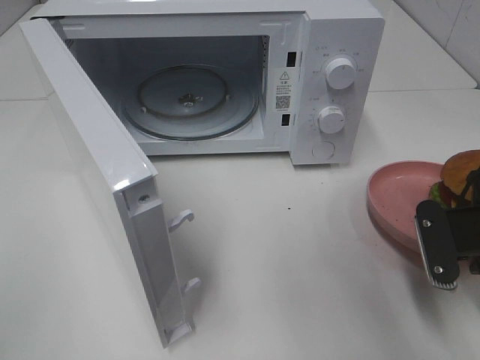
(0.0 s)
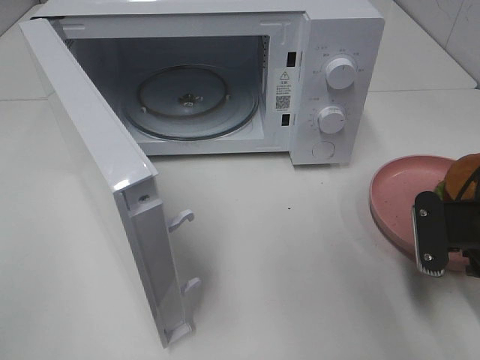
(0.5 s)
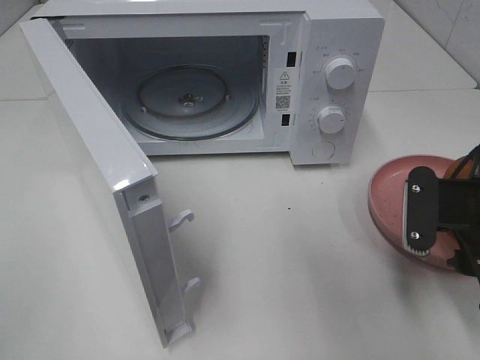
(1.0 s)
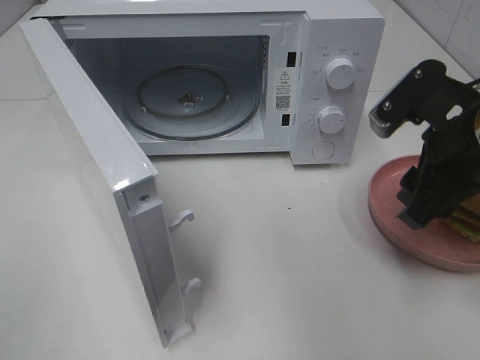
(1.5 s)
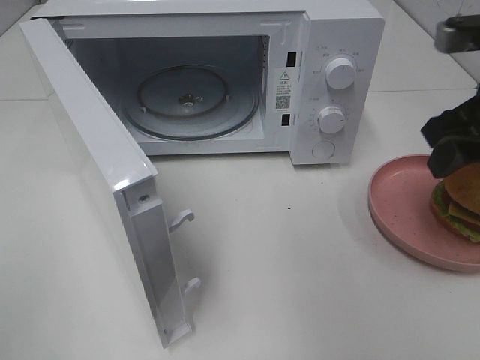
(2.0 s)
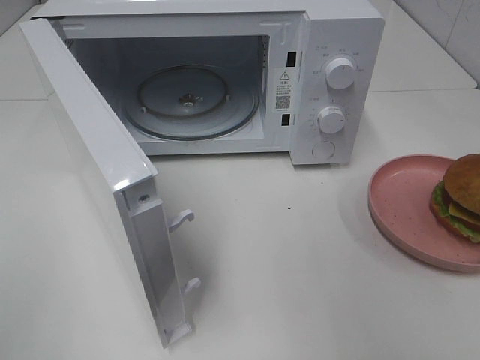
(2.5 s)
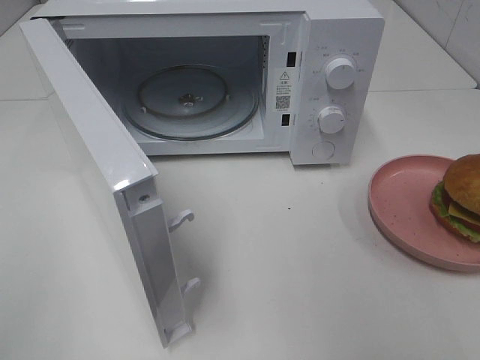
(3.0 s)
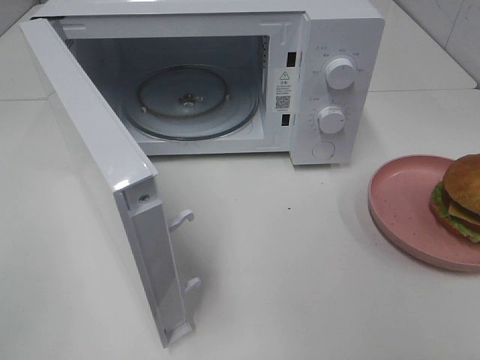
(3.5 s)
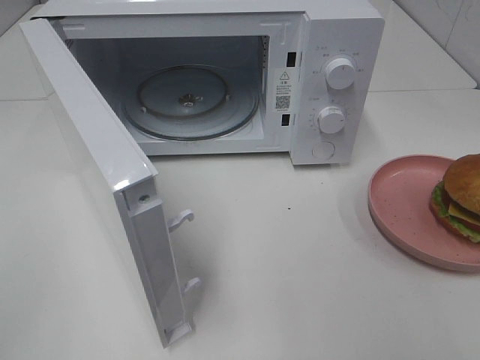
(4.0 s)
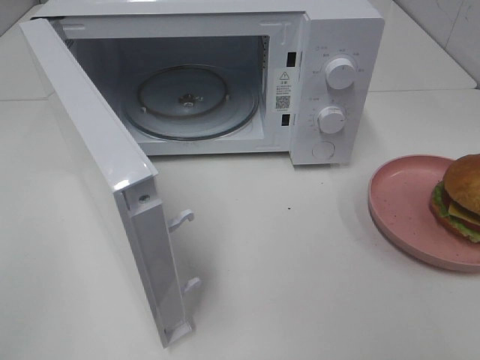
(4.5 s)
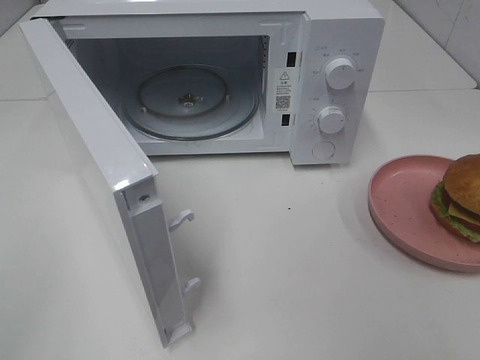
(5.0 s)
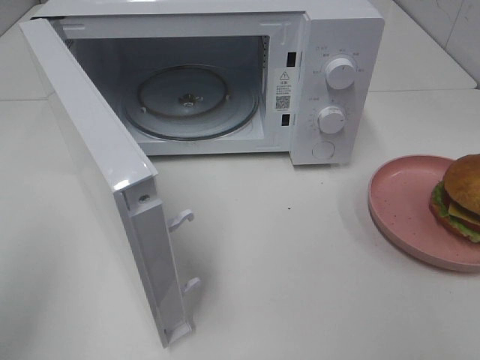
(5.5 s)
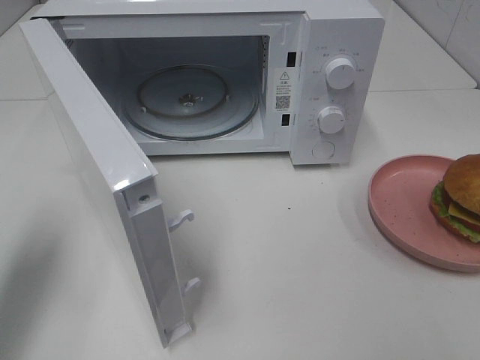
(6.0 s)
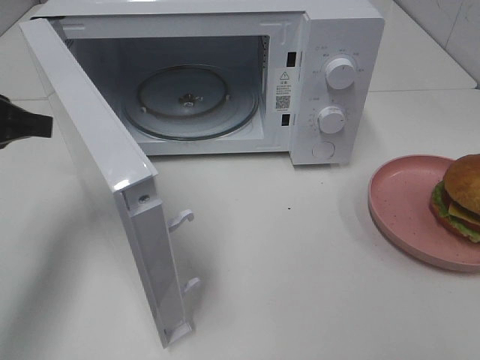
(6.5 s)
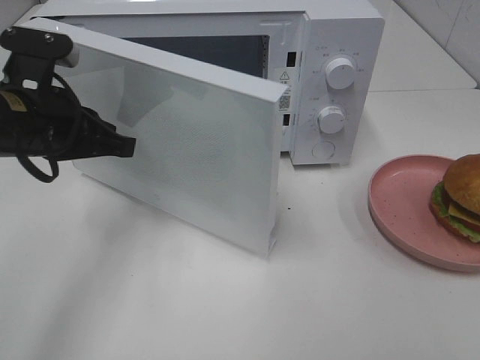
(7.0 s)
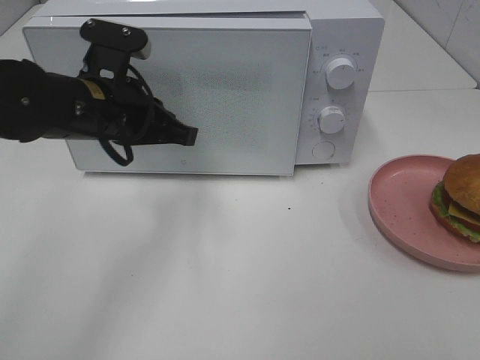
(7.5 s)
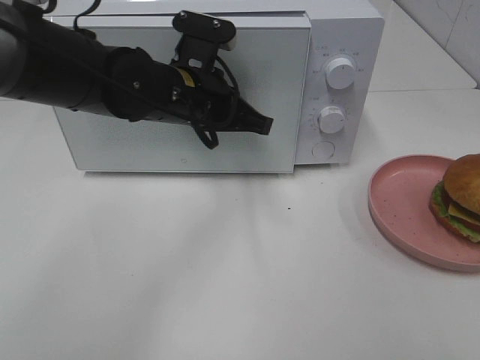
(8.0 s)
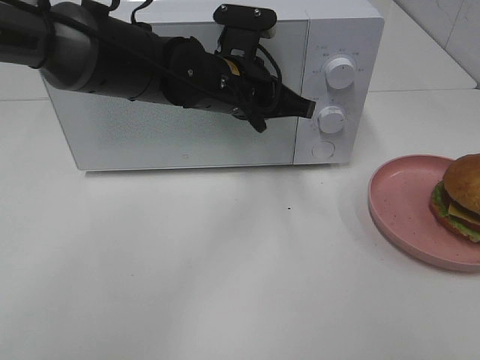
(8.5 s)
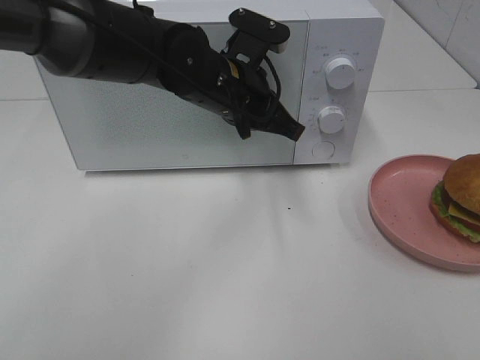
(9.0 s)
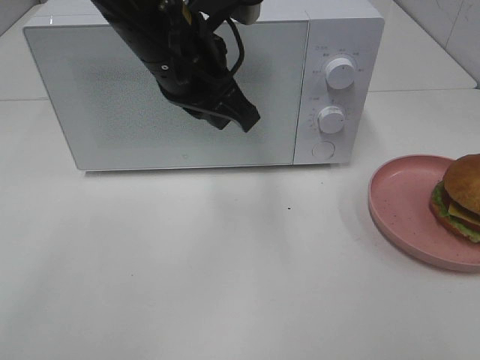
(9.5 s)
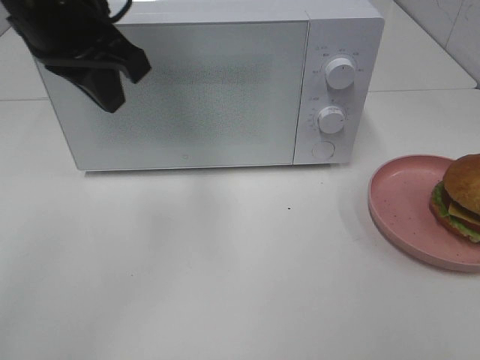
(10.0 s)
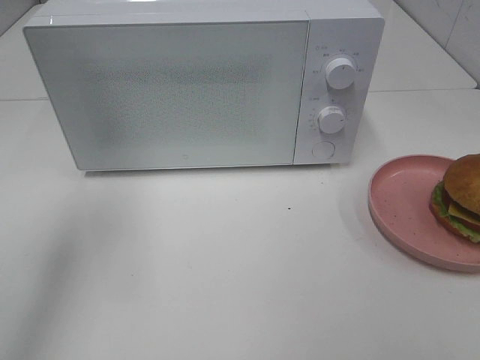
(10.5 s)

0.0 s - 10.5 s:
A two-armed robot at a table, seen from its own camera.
Task of the whole recording: Heat the burger.
Step, 1.0 s - 9.0 s: Left hand: close the microwave door.
0.0 s - 2.0 s: The right gripper shifts some 15 cm upward, and opens its fingers.
2.0 s - 4.0 s: The right gripper moves backward, approximately 25 cm.
4.0 s - 6.5 s: The left gripper shifts approximately 25 cm forward.
6.5 s - 8.5 s: The left gripper heads to the right, covering about 25 cm.
8.5 s - 10.5 s: The left gripper shifts approximately 30 cm to the left, upward and backward.

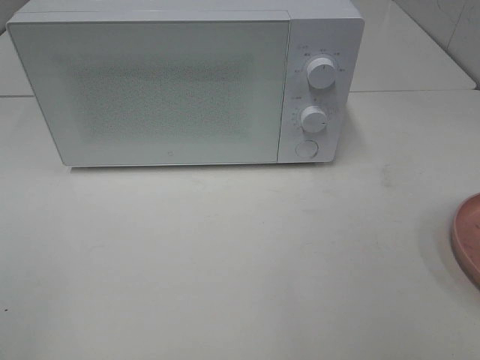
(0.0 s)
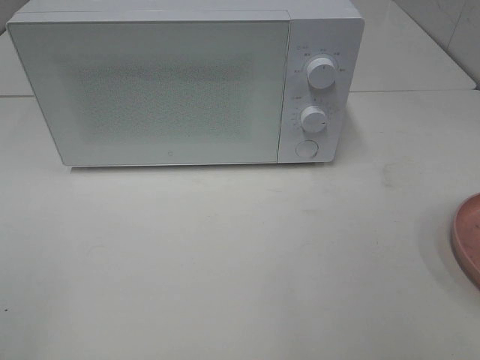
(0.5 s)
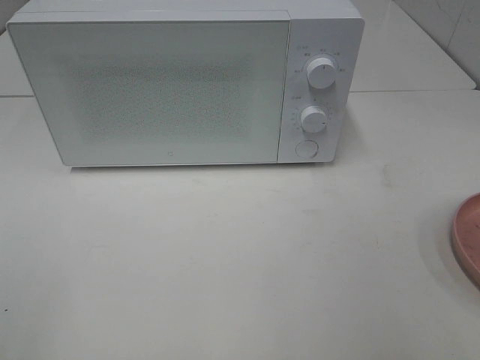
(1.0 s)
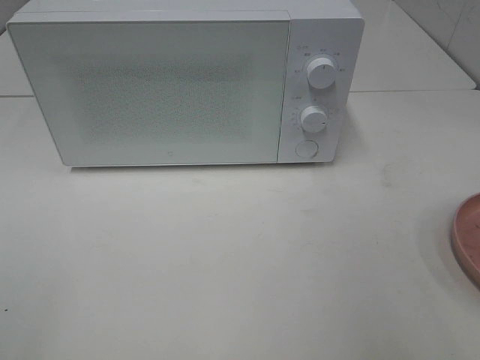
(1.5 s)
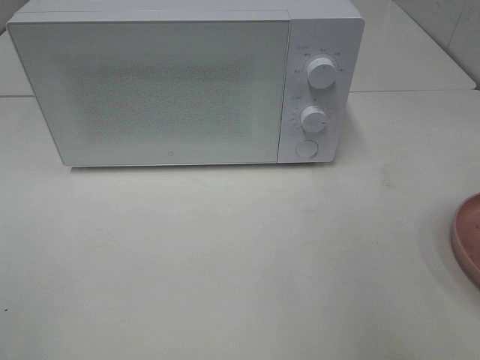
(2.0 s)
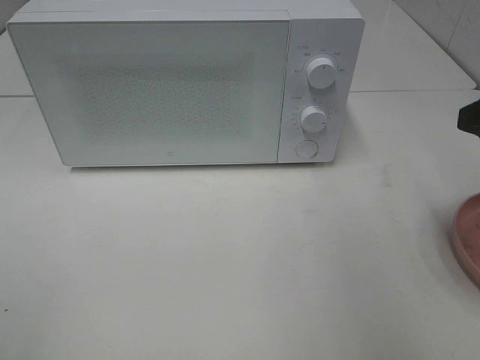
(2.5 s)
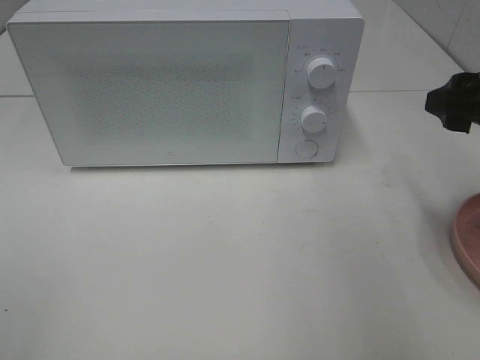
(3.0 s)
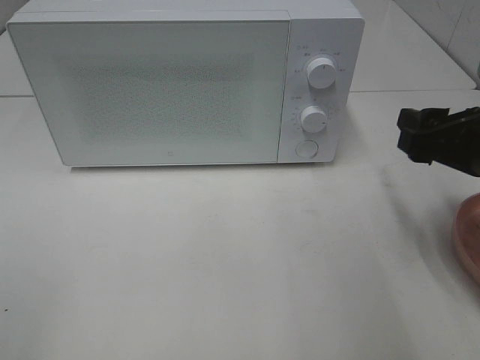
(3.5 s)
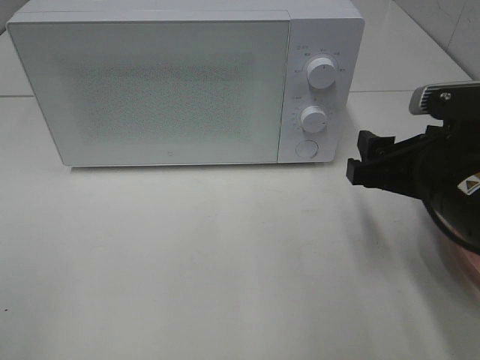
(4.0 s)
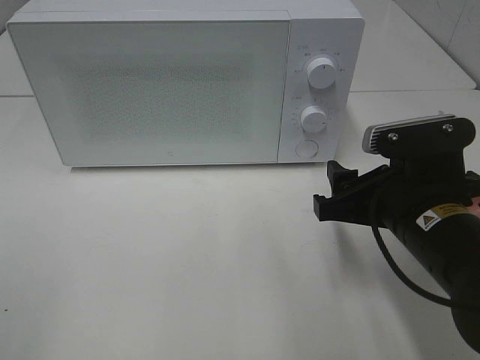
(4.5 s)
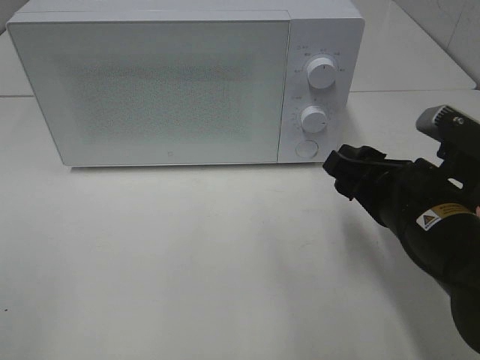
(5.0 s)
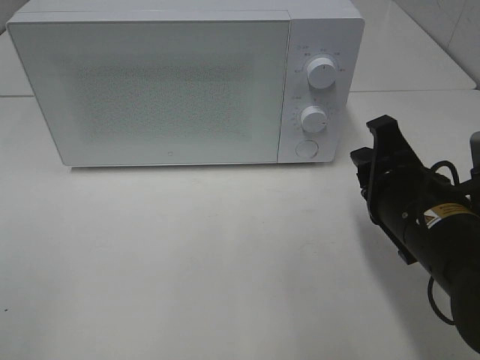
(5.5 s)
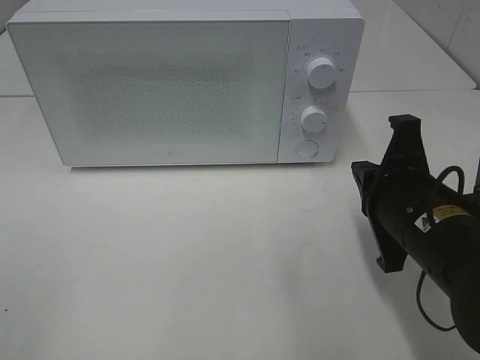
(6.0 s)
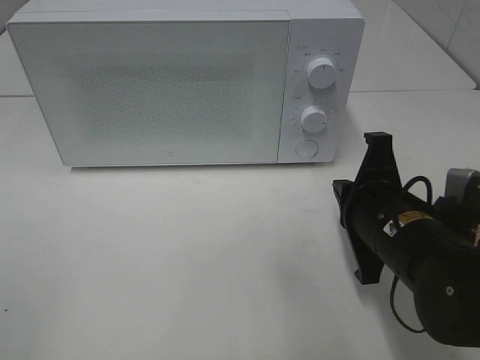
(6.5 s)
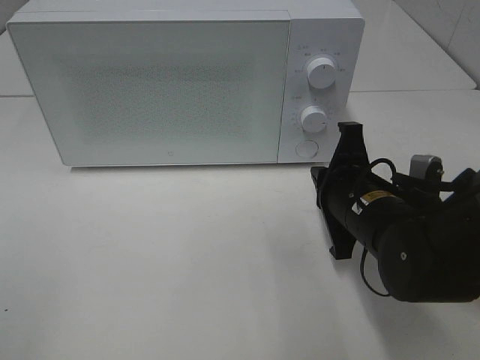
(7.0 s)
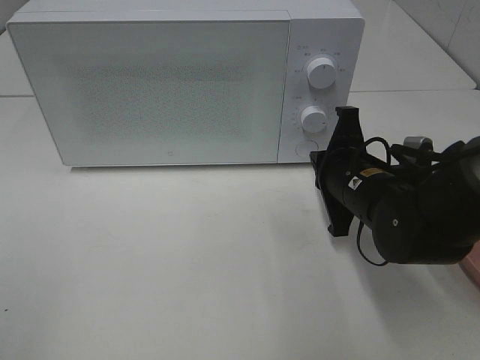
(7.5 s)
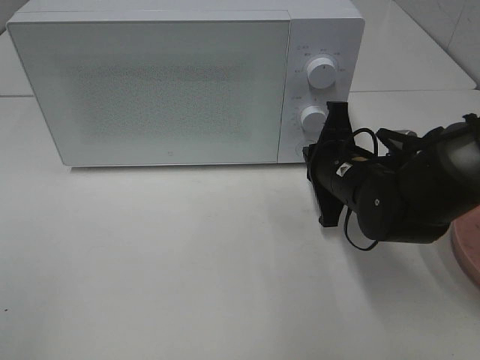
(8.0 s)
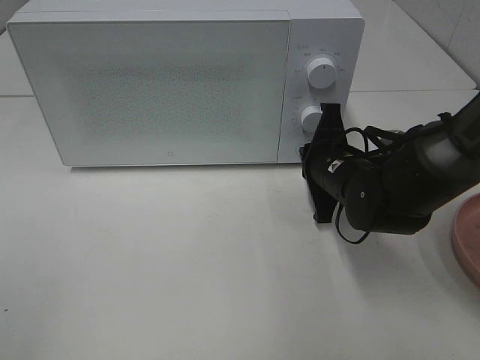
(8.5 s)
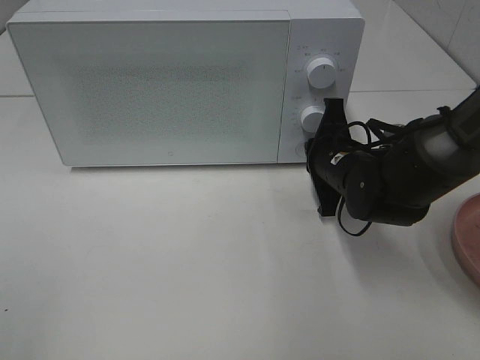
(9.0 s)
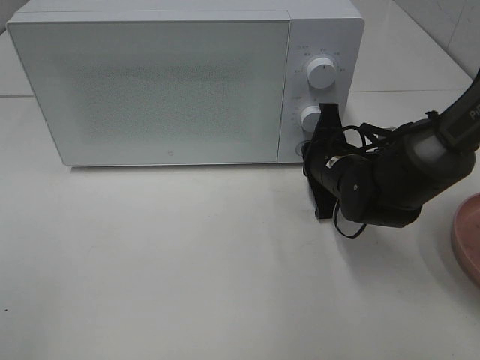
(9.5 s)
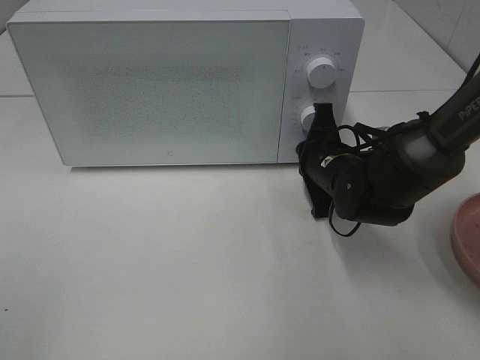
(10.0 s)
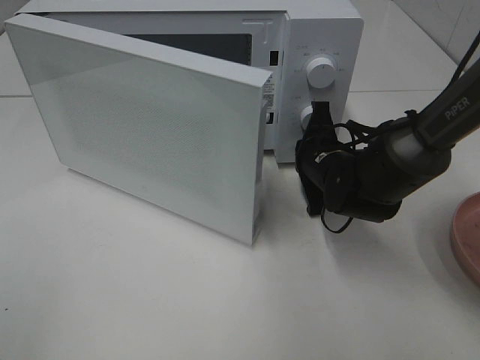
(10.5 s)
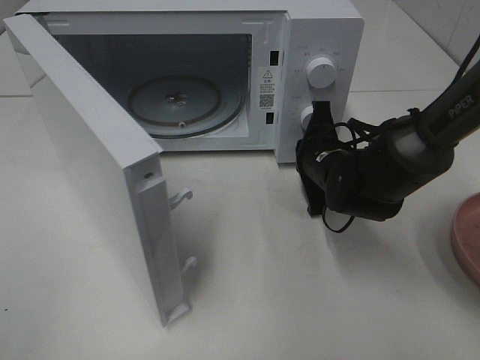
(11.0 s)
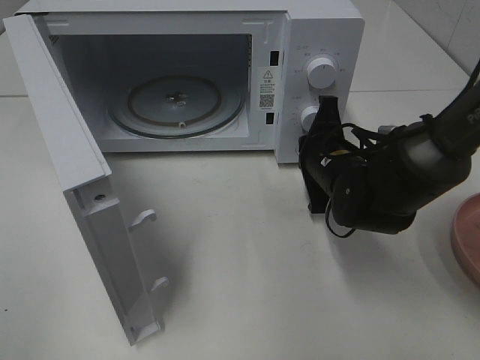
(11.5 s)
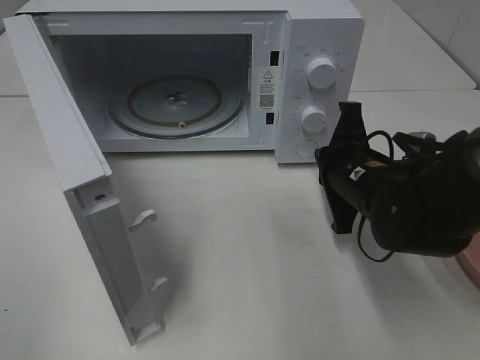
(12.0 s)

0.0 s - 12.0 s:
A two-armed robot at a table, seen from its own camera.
Task of the whole recording: Heat the burger.
Step, 0.0 s - 11.5 s: Right hand: press the switch.
2.0 s - 4.0 s: The right gripper heads downward, to the left and forward, covering about 15 cm.
4.0 s - 6.0 s: The right gripper closes up.
6.0 s - 8.0 s: The right gripper goes approximately 10 cm forward.
8.0 s - 10.0 s: The grippers stay close to where they were, moving slightly.
10.0 s - 12.0 s: The right gripper travels backward by about 5 cm.

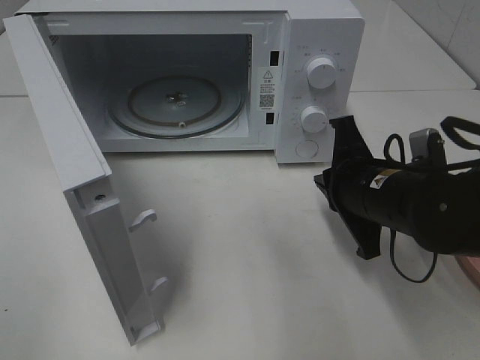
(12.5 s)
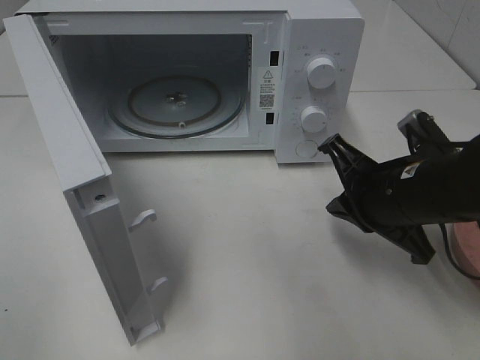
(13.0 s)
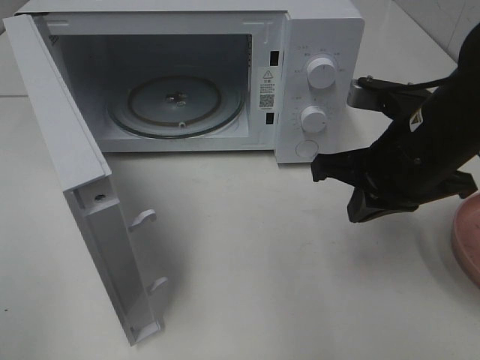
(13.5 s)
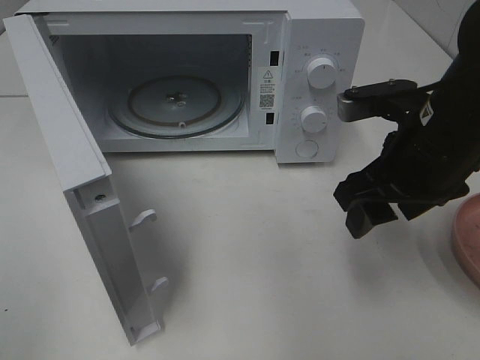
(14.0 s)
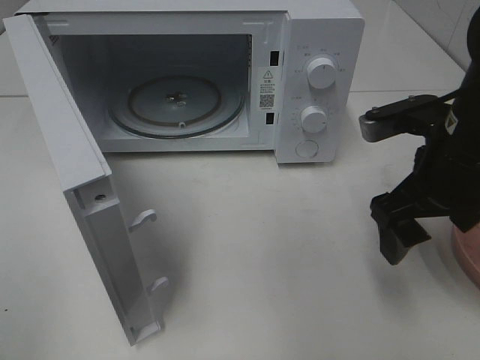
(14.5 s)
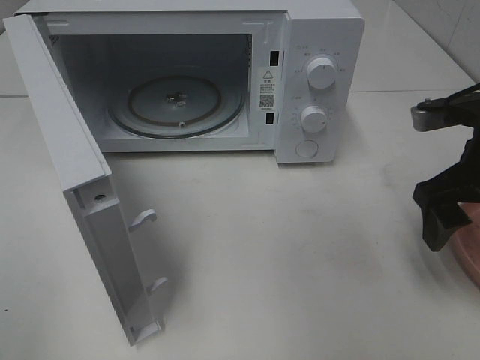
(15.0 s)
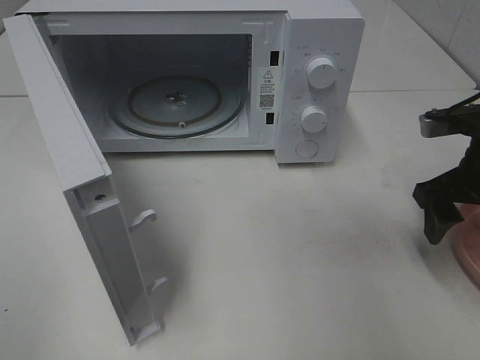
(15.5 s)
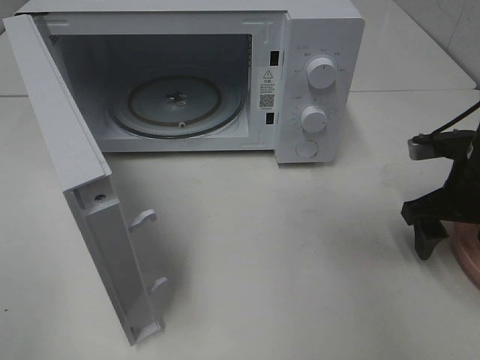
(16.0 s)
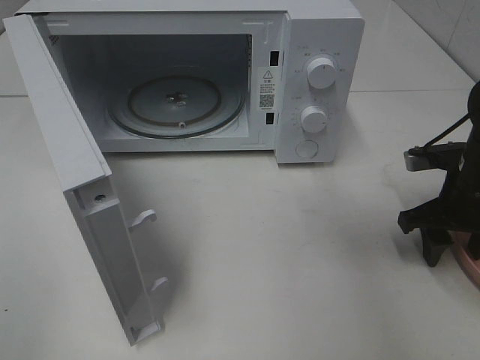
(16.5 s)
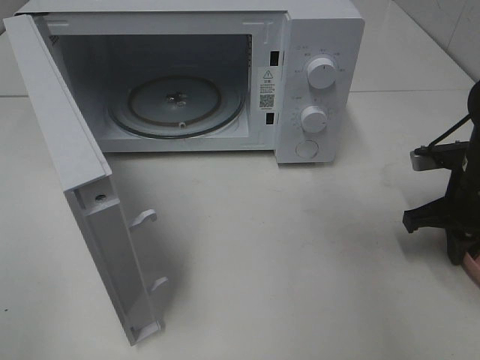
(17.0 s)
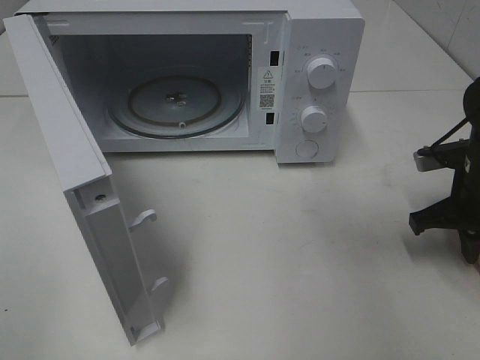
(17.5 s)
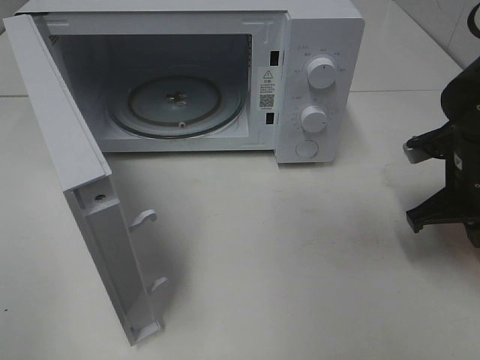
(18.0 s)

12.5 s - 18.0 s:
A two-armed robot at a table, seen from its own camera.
Task of the whole recording: Heat the burger.
Step, 12.5 s - 17.5 s: Right hand: grab the plate with the hamburger.
12.5 s - 14.5 s: The right gripper travels upward by about 5 cm, and opens its fingers.
14.5 s - 16.0 s: The right gripper heads to the right, downward and forward, covering approximately 10 cm.
16.0 s - 18.0 s: The right gripper closes.
